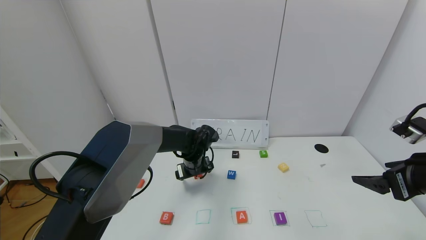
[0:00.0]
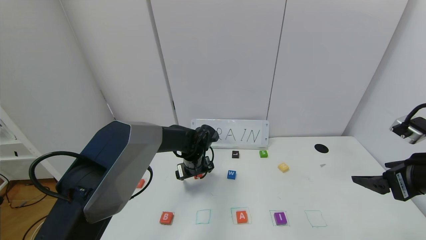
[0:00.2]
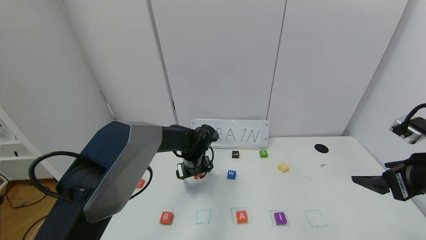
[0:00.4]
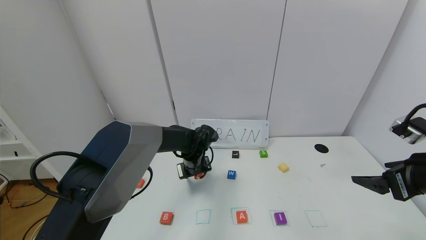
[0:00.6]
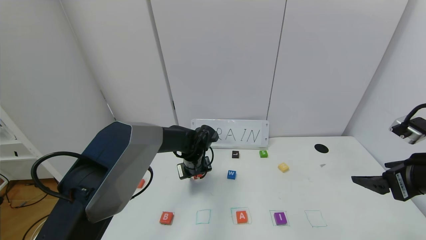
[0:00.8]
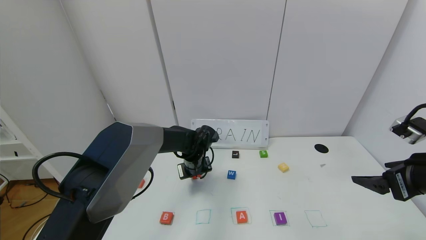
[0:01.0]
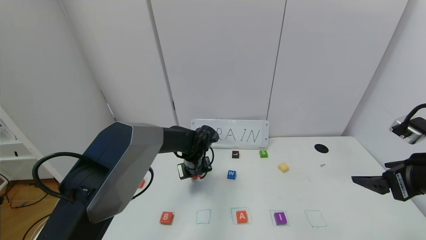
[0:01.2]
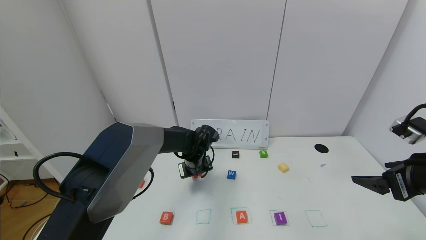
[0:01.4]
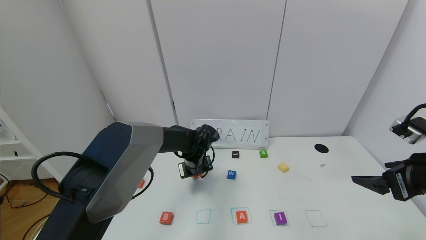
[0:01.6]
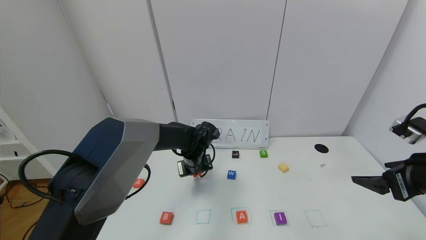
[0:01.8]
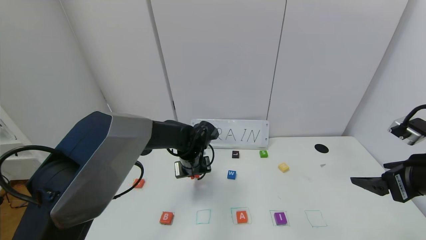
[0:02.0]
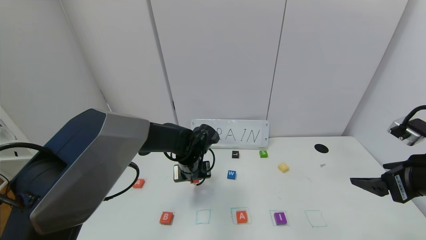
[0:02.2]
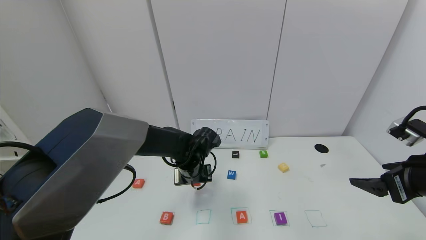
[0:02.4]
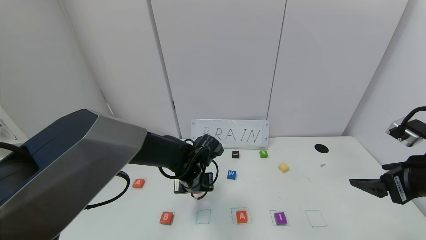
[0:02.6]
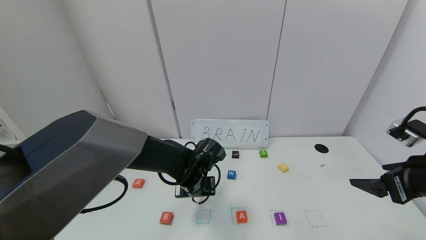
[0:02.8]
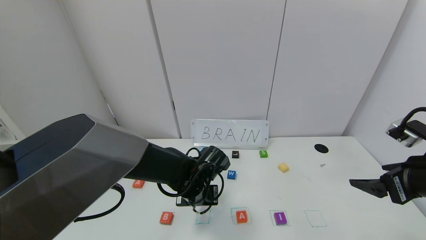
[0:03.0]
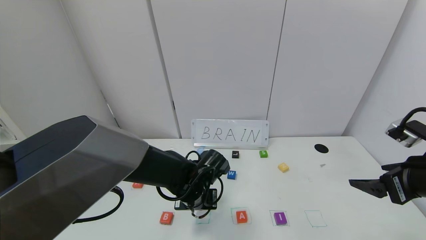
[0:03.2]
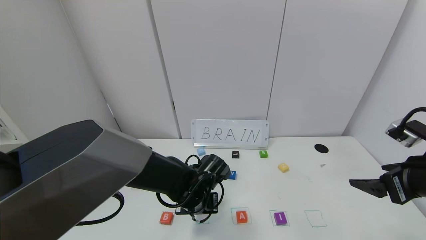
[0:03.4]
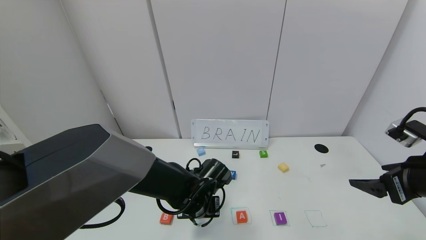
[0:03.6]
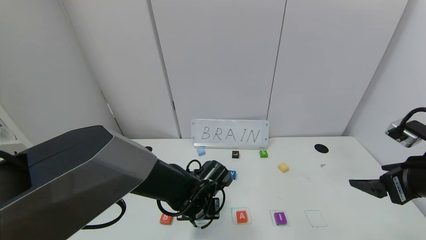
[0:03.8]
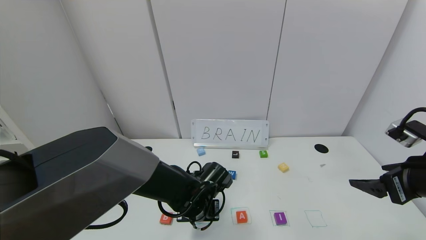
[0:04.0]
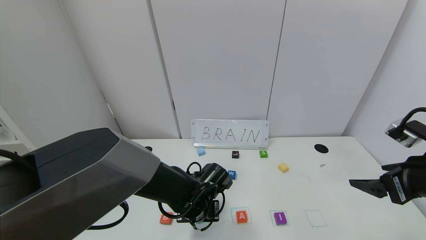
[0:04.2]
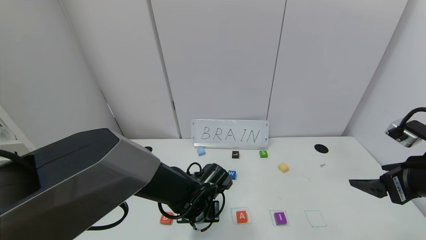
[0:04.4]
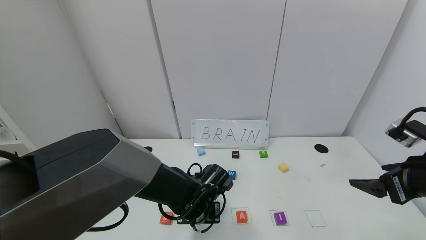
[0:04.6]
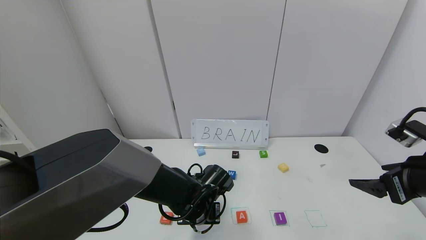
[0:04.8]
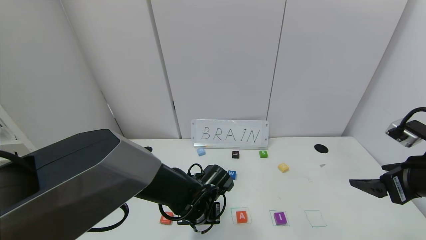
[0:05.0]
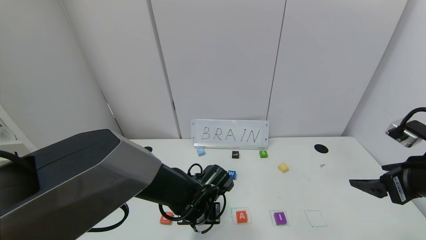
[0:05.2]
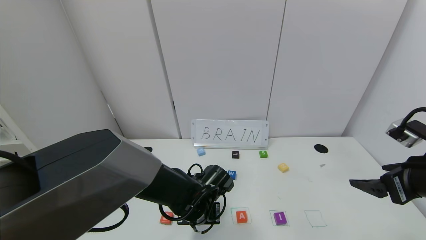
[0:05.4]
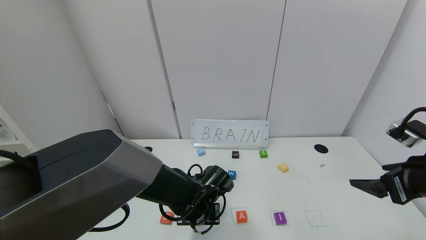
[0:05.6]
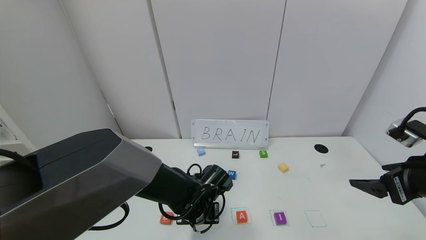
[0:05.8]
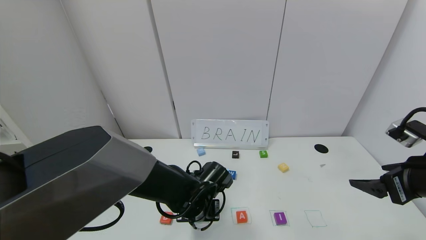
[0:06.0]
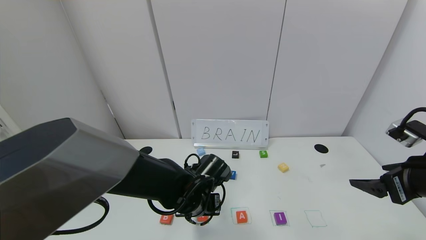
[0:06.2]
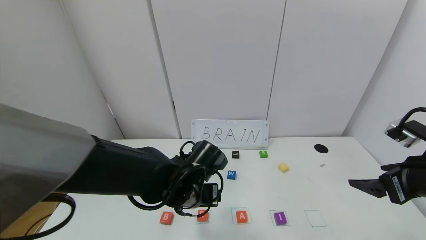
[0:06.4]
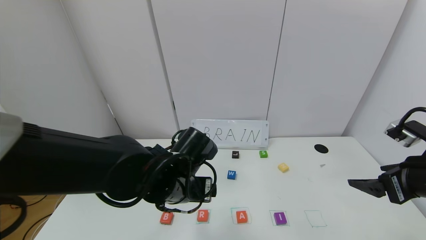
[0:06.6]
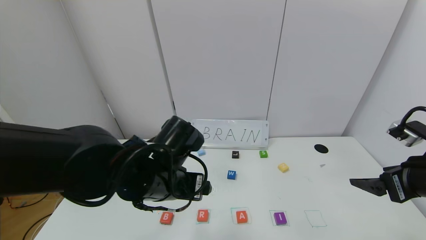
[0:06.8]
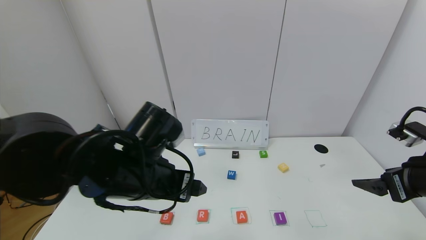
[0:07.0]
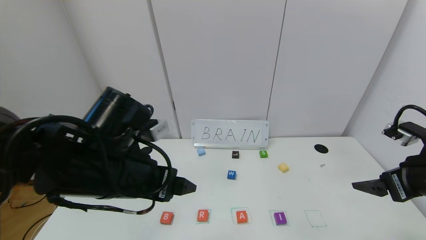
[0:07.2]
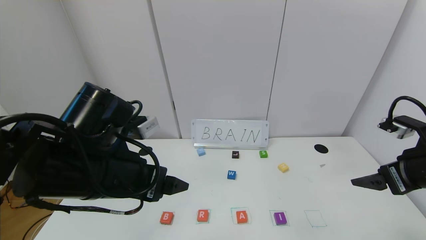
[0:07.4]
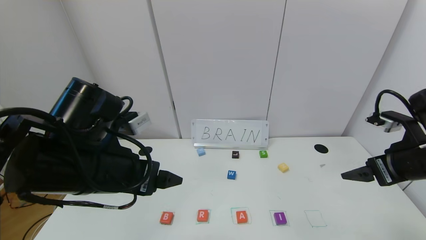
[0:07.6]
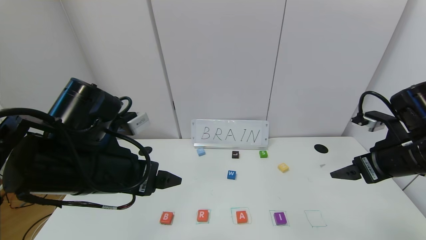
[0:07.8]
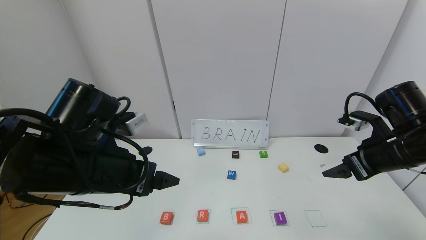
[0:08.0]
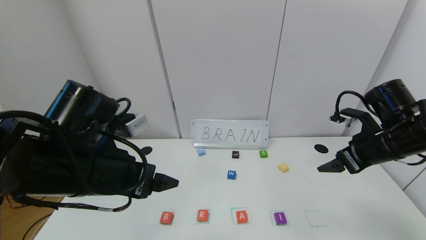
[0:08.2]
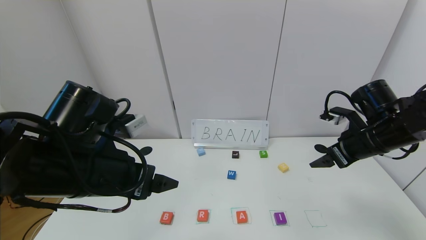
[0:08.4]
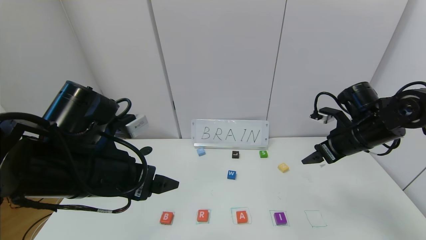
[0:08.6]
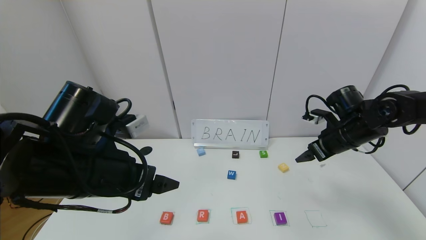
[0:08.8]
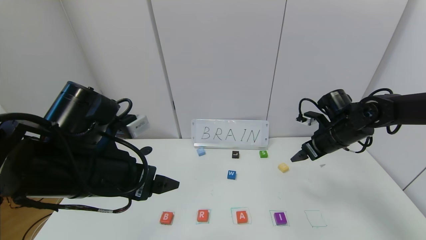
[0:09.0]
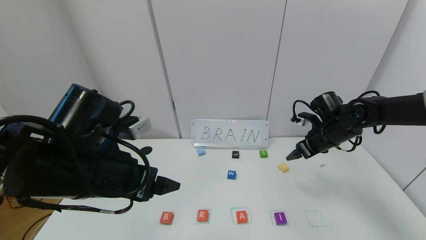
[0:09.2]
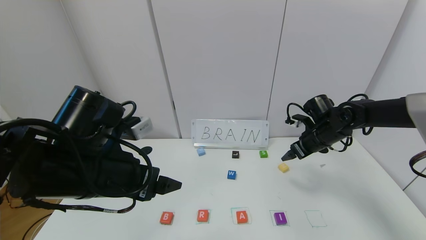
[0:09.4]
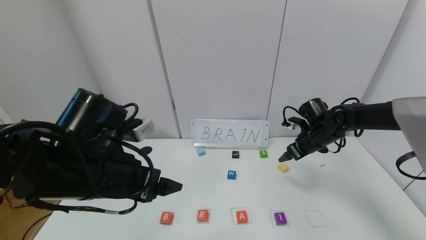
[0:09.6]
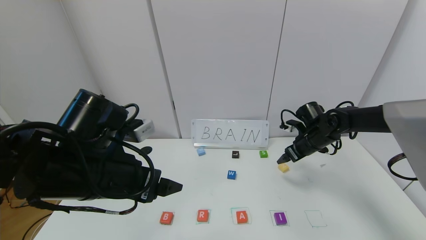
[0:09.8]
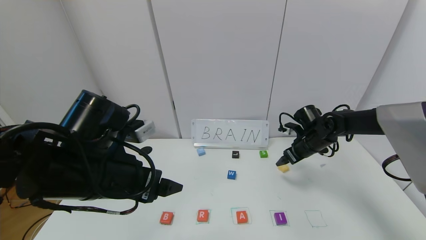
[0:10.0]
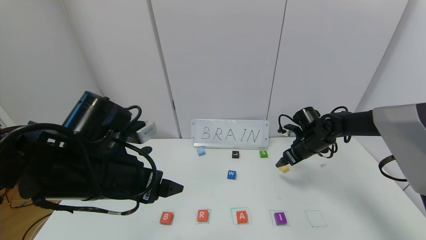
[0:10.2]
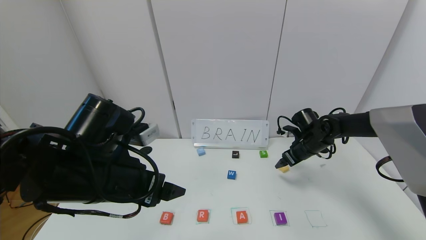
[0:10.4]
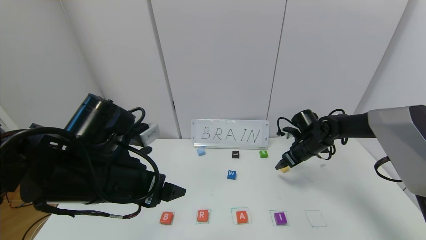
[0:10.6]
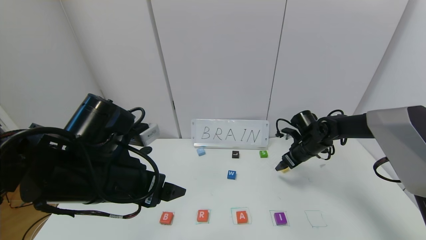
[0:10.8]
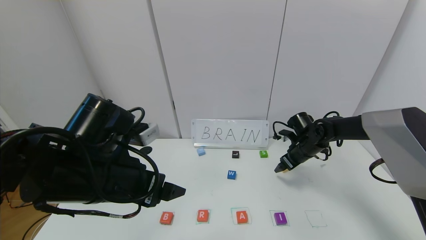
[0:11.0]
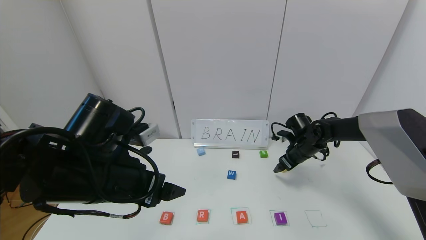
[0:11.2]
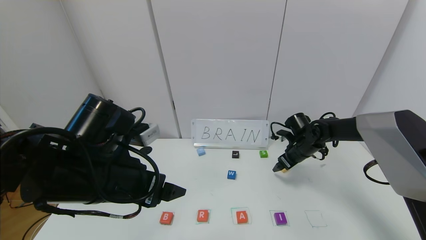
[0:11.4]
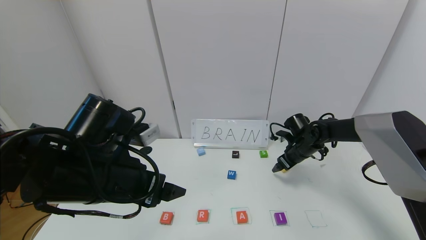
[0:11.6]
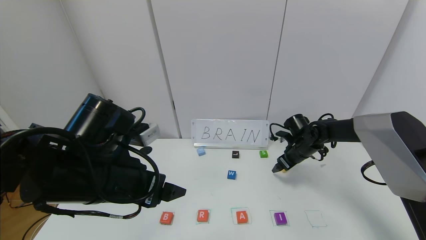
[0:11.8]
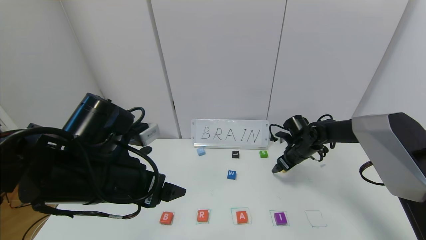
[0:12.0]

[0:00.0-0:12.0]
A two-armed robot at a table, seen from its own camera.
Task of the whole recording: use the gripper to find blocks with the letters b, a, a, and i on the table and arrange them into BAAI, then find r and N and turn the arranged baai into brian.
Step, 0:00.0 to 0:06.0: Place the block R in the second location.
0:00.0 to 0:01.6: The left gripper closes its fingers.
0:01.6 to 0:03.0: The left gripper goes approximately 10 cm backward.
0:03.0 to 0:04.4: The grippers move only a little.
0:04.4 to 0:06.0: The left gripper opens up.
0:06.0 to 0:07.6: The left gripper shifts roughly 20 cm upward and to the left.
0:07.6 to 0:09.0: The right gripper shifts roughly 15 cm forward and downward.
0:09.0 to 0:10.4: The right gripper travels downward and forward by approximately 10 cm.
0:10.4 to 0:12.0: The grippers move only a little.

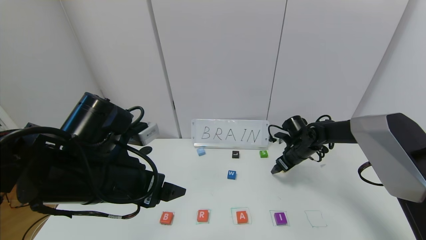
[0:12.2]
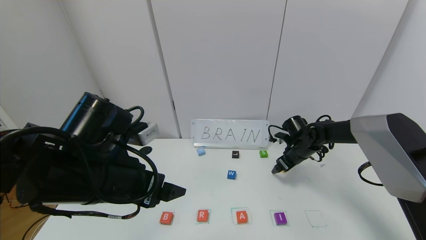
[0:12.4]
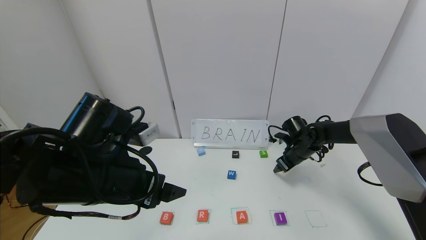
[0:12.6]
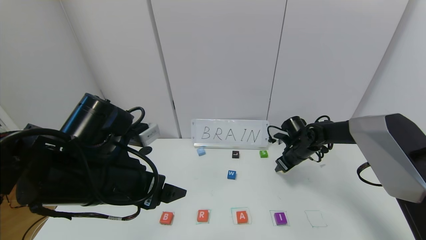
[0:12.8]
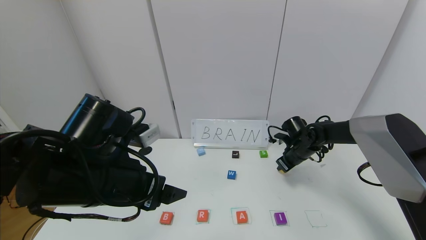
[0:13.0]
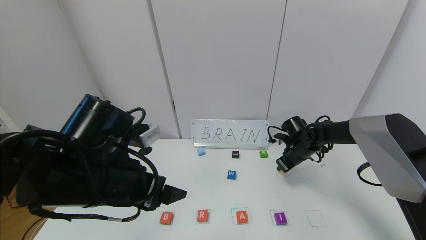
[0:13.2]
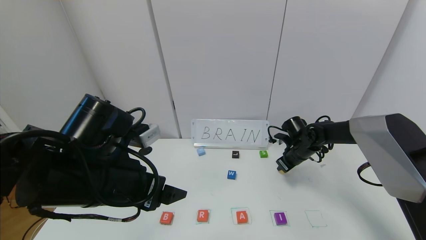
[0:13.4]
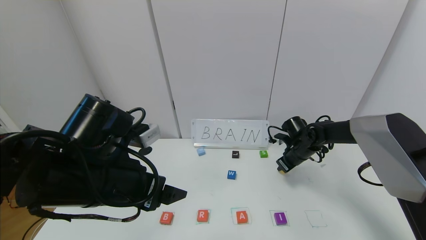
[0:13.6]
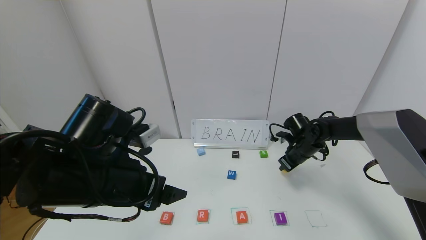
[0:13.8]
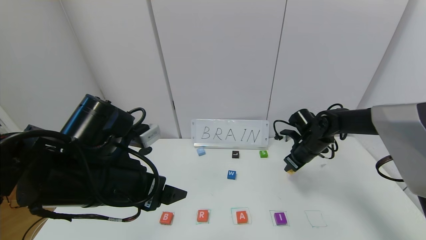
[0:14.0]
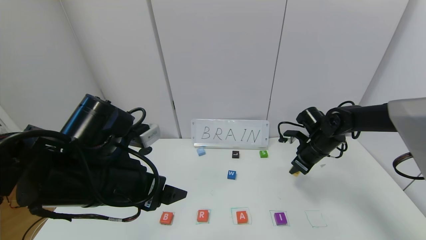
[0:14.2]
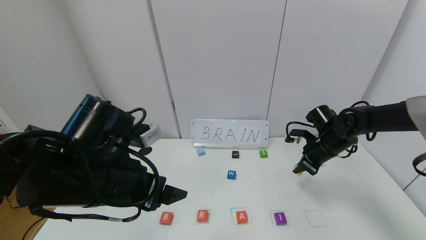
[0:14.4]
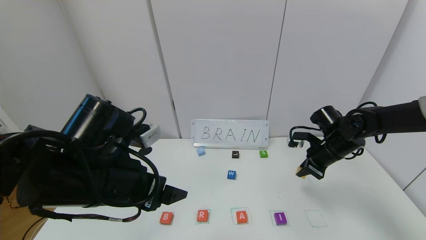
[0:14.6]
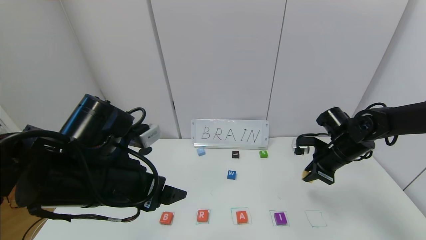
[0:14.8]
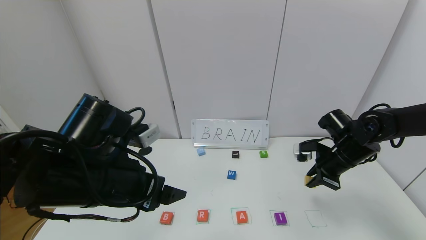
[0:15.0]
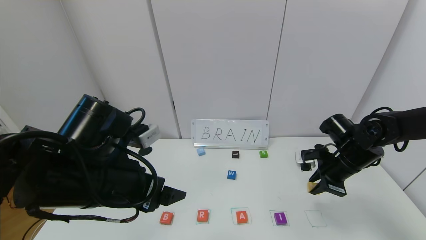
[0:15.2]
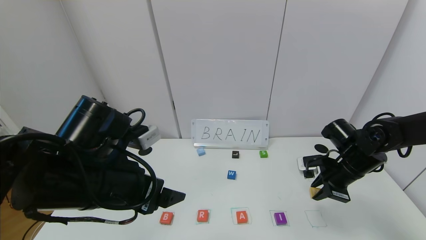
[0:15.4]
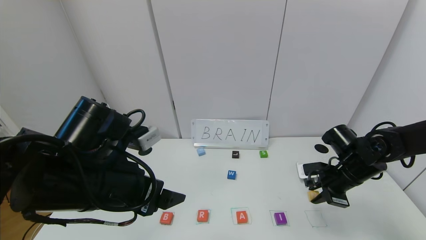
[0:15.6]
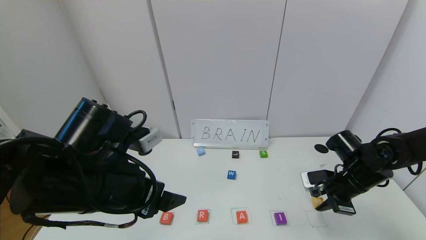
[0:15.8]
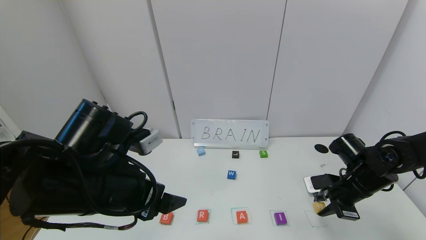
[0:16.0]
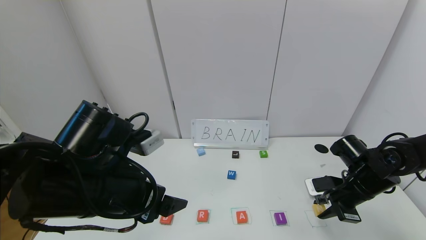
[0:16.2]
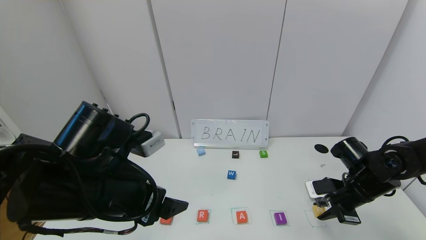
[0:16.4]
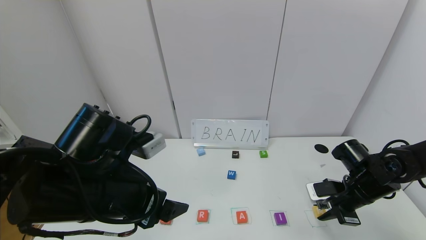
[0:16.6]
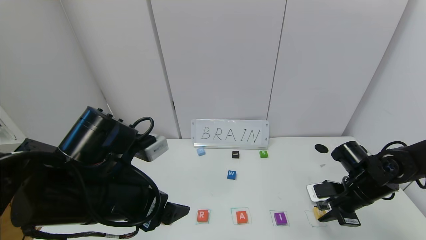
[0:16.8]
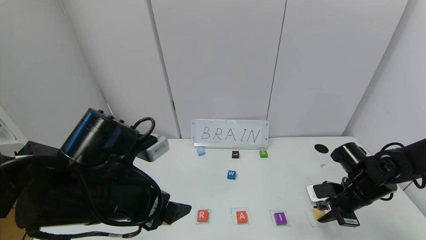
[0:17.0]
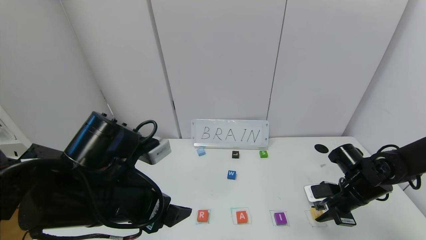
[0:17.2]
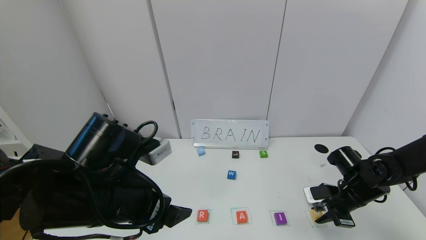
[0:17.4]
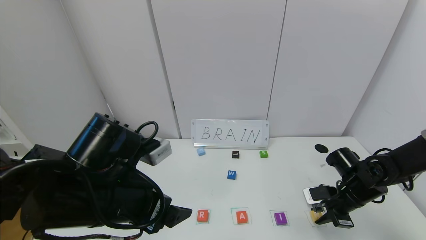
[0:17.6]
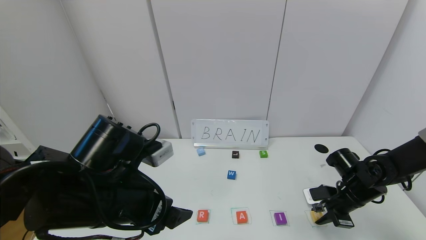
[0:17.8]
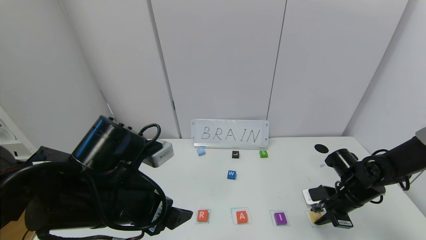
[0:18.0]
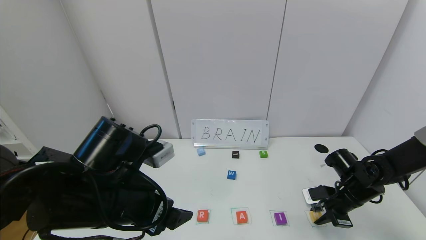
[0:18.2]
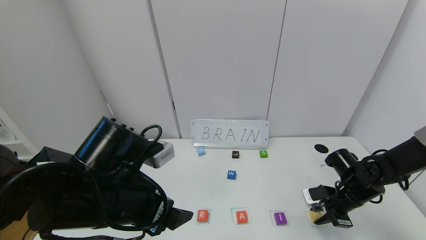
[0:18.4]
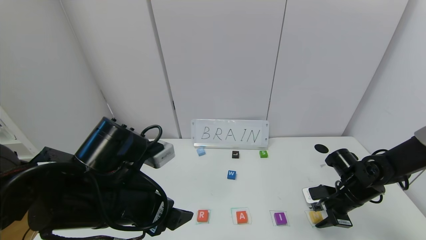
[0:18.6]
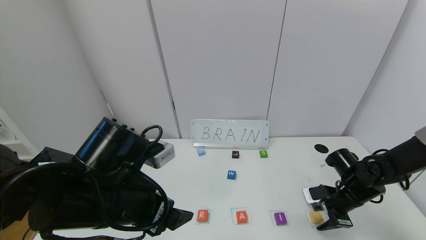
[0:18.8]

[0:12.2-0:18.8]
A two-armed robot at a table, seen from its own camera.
Task of the whole recording: use the gripper to find blocks with the letters b, a, a, and i on the table and arrange them into BAAI, then find r and N and turn the arranged baai into brian.
Step, 0:12.2 to 0:18.8: Place the block N in the fifth location.
0:12.2 to 0:13.8: The right gripper closes up.
0:13.8 to 0:15.4: The right gripper is displaced backward by roughly 10 cm.
0:15.4 to 0:17.2: The right gripper shifts about 5 cm downward.
0:17.2 to 0:18.8: The right gripper opens up.
